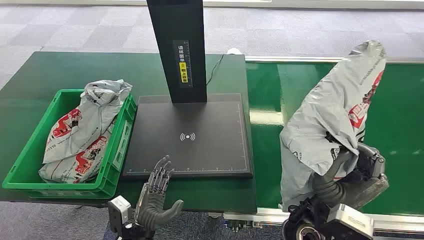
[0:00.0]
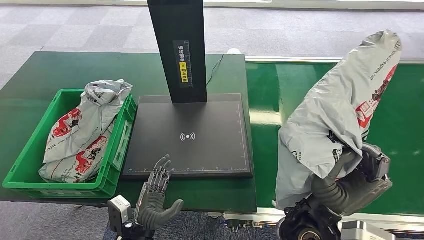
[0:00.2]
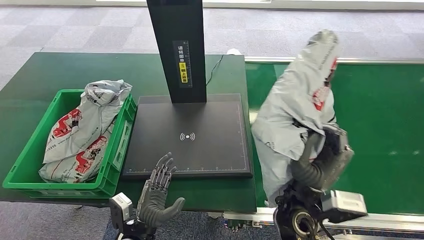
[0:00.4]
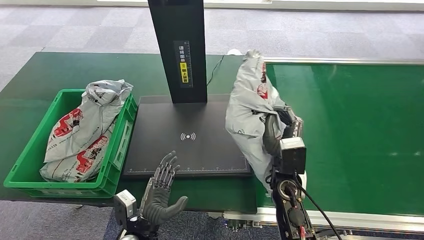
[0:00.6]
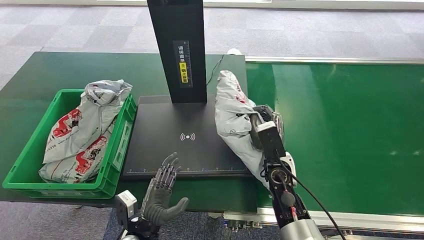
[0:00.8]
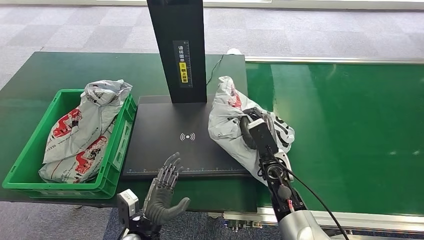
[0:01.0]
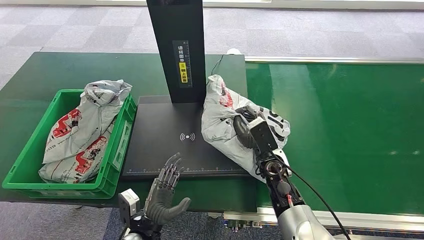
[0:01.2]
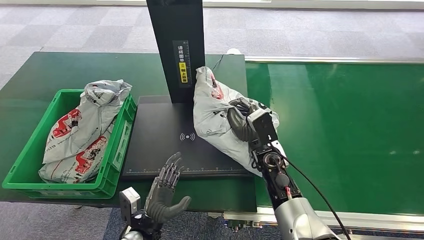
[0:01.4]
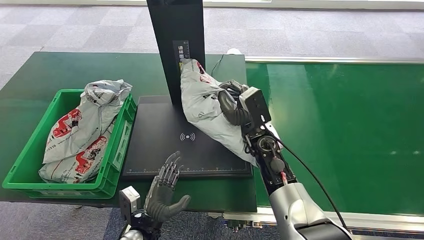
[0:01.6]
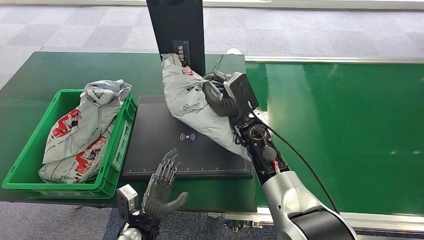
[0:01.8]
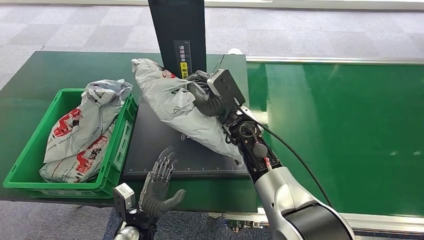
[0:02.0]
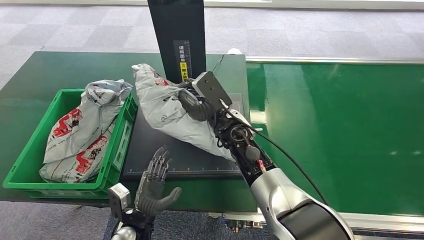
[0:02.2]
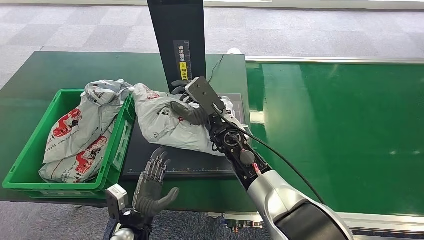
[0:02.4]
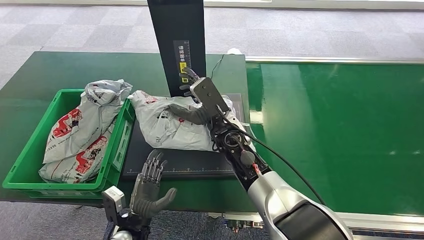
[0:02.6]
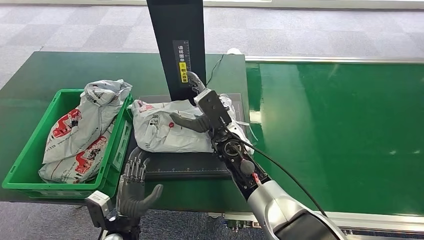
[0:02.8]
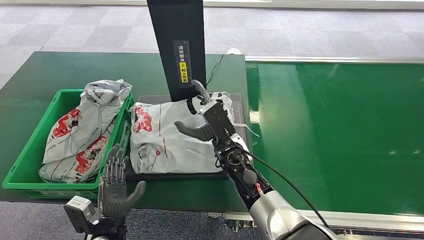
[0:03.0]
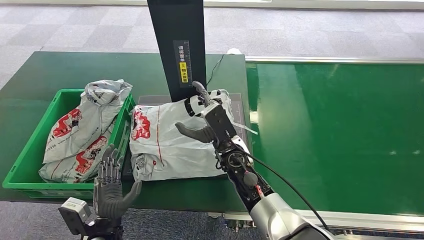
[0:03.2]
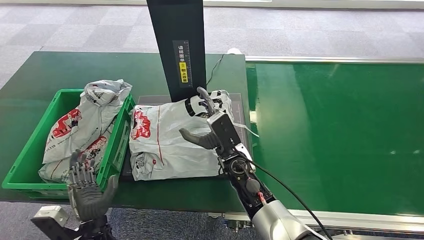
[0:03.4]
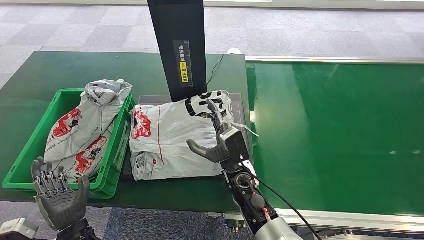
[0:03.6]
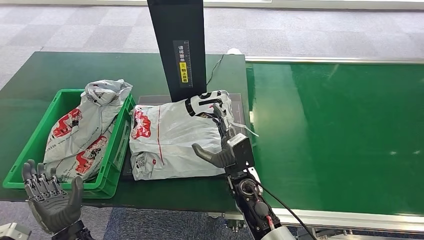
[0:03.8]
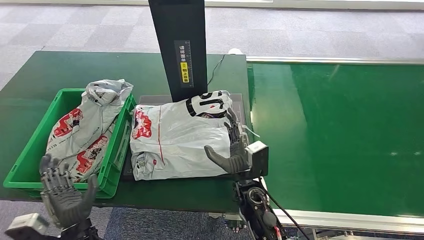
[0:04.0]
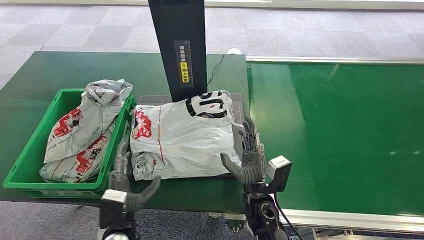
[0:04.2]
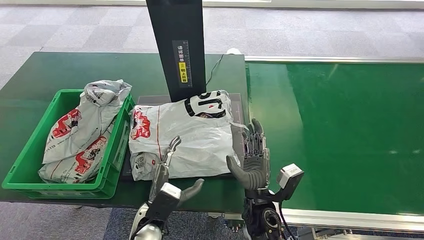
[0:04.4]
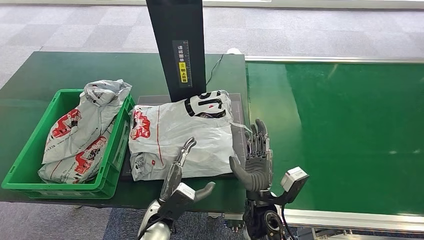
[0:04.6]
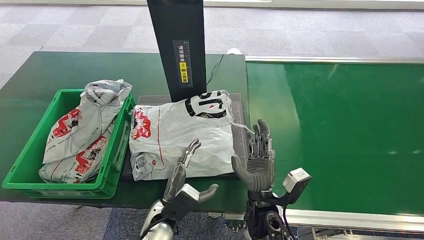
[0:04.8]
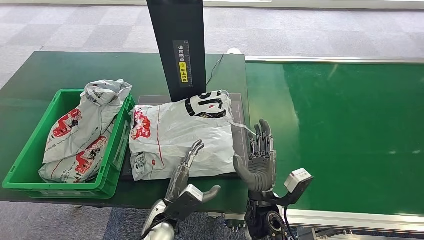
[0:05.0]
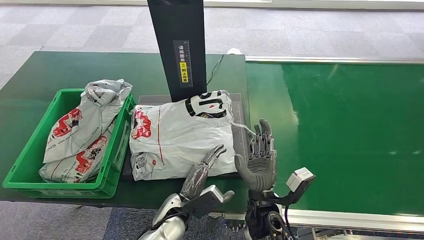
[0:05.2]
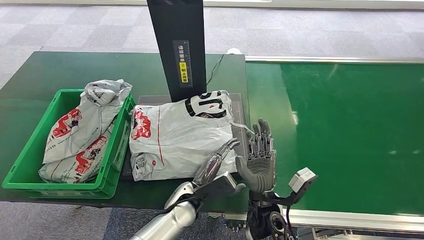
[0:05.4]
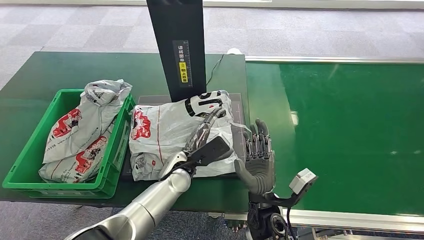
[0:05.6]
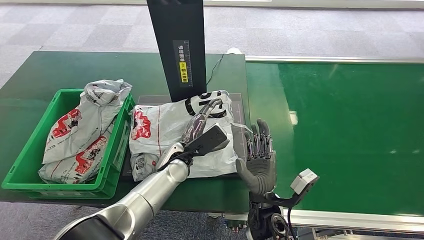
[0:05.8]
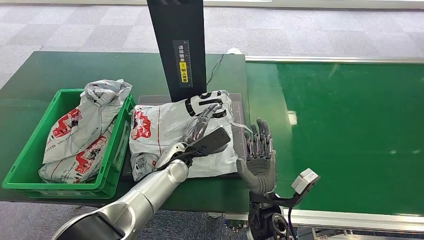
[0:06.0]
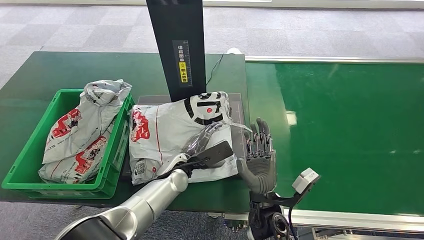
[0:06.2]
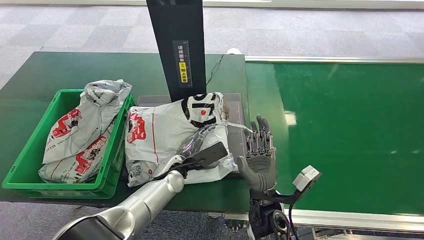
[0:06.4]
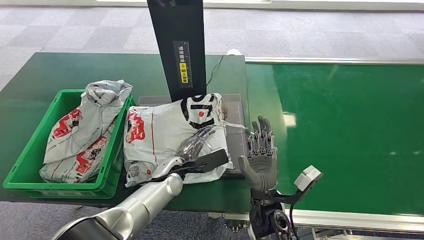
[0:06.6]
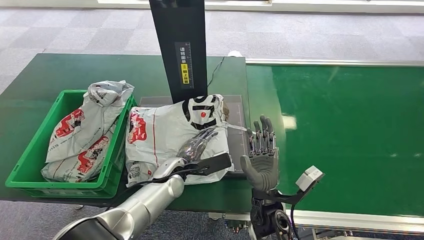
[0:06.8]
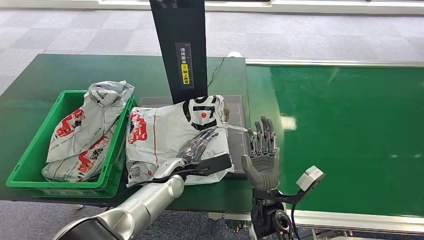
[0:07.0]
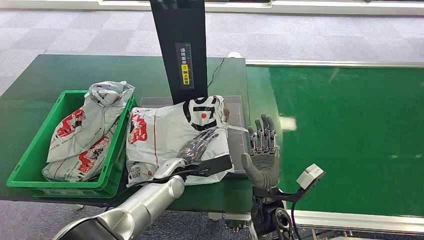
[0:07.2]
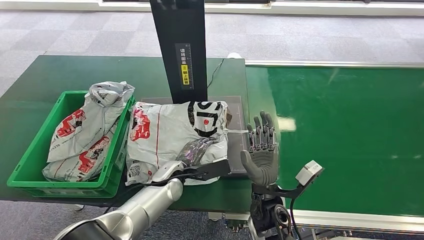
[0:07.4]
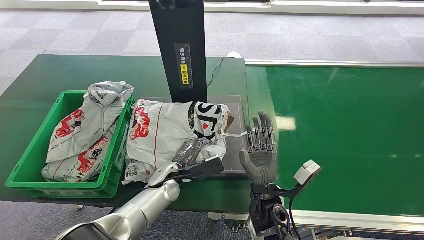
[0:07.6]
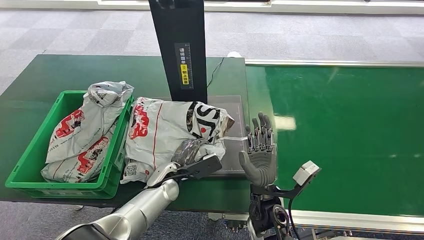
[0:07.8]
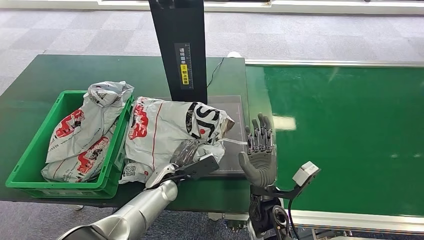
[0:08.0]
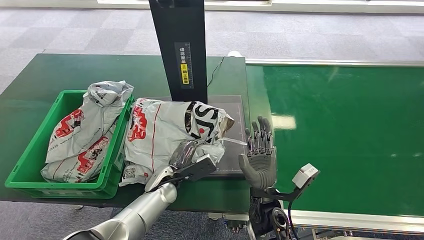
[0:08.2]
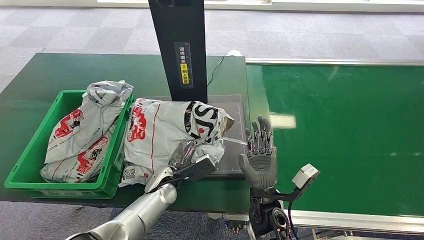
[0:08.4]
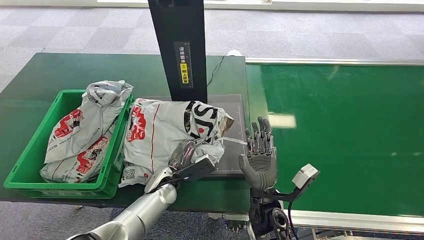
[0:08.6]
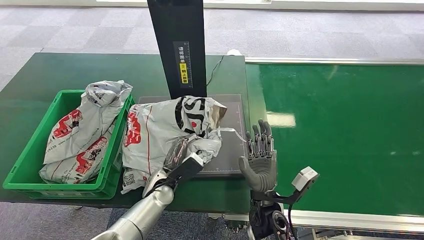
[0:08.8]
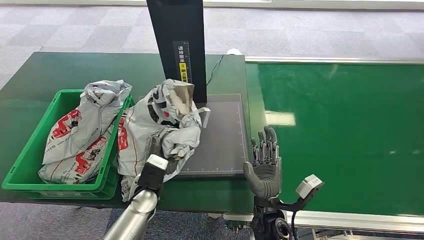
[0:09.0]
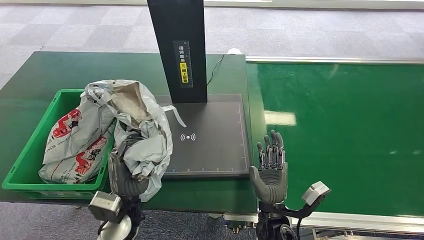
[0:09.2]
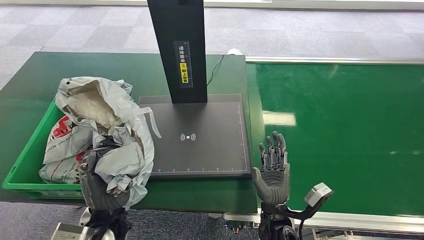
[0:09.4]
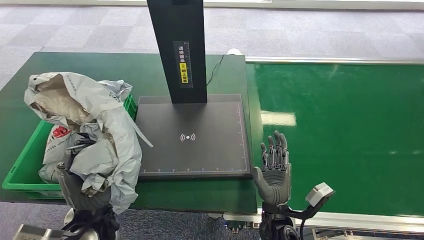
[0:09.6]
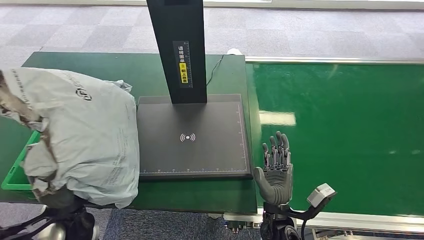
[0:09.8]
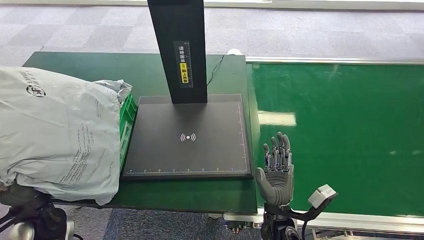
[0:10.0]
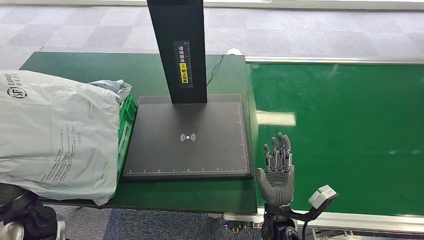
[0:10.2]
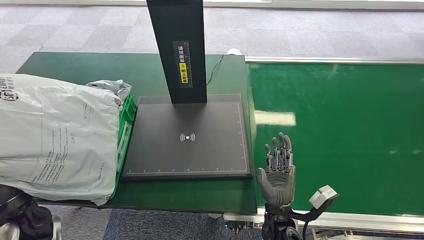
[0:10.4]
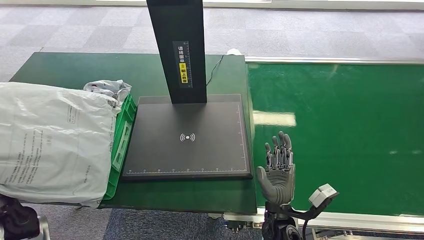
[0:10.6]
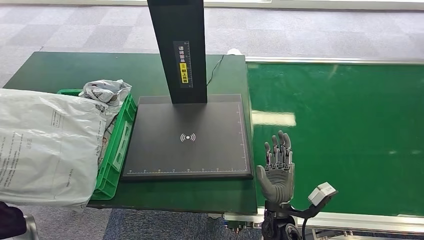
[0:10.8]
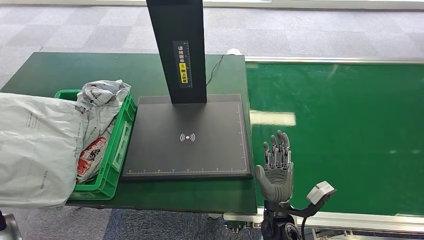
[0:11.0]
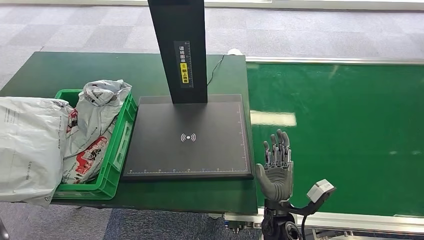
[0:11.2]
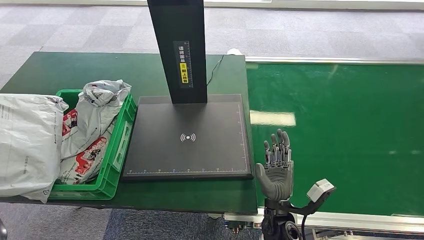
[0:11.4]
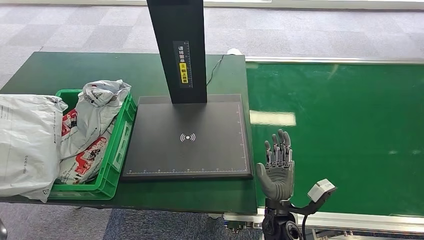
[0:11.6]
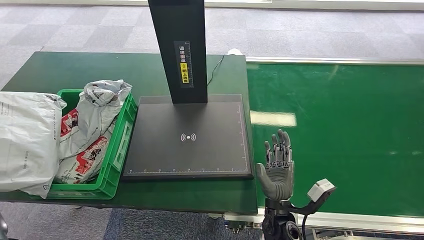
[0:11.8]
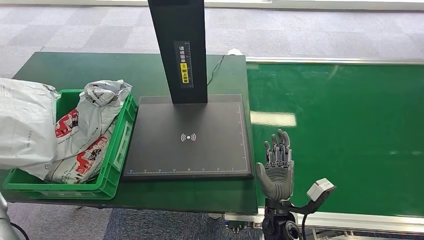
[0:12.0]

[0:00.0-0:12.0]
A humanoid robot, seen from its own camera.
0:03.0 to 0:04.4: The right hand travels backward, downward and to the right by roughly 15 cm. The left hand is displaced to the right by approximately 10 cm.
0:04.4 to 0:06.0: The left hand is displaced forward by about 15 cm.
0:10.4 to 0:12.0: The left hand moves to the left, roughly 20 cm.

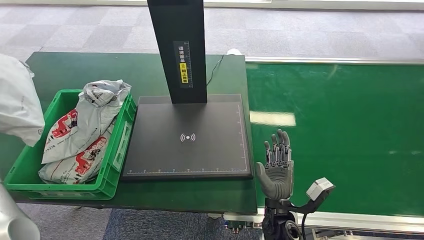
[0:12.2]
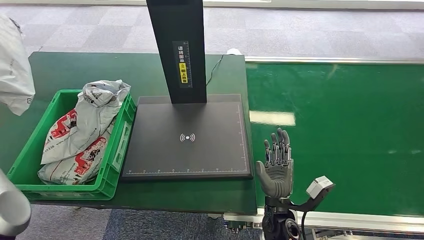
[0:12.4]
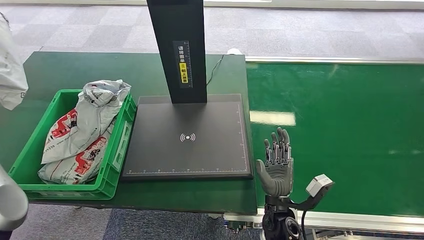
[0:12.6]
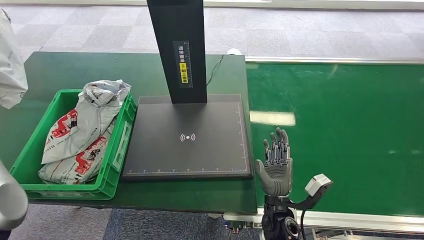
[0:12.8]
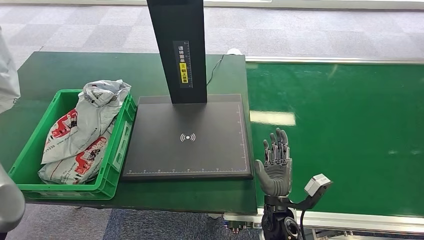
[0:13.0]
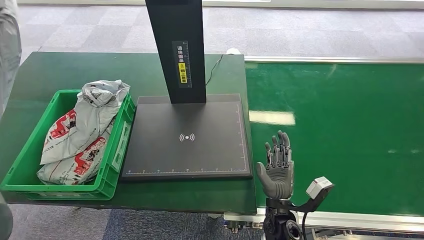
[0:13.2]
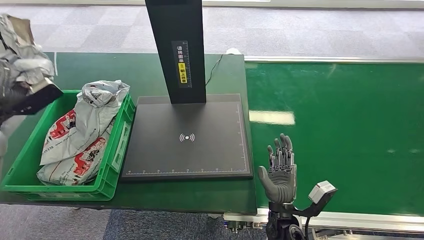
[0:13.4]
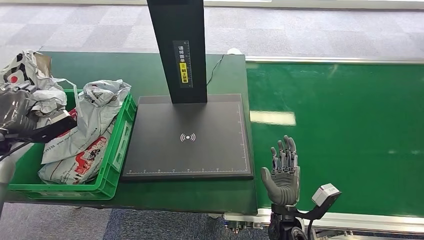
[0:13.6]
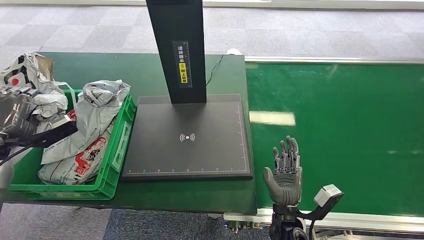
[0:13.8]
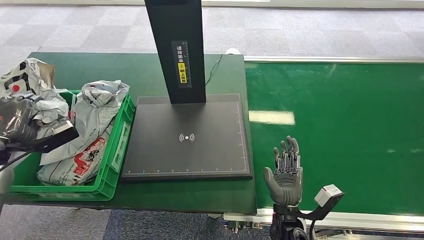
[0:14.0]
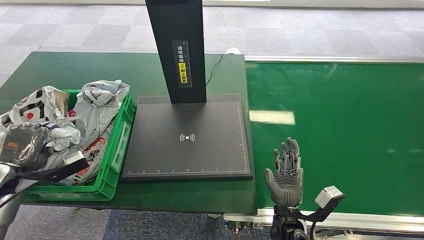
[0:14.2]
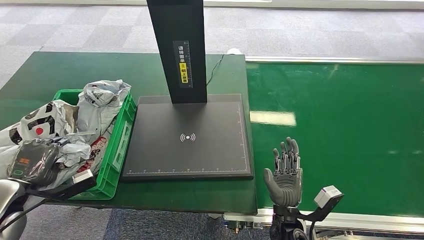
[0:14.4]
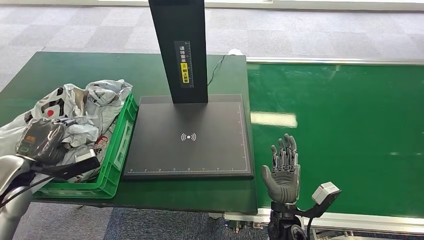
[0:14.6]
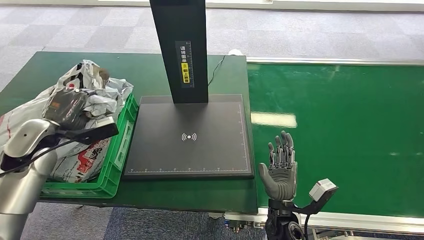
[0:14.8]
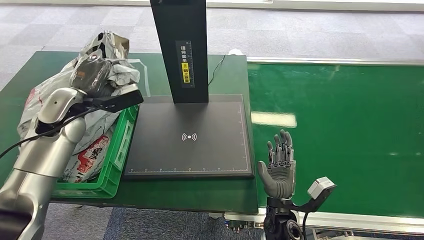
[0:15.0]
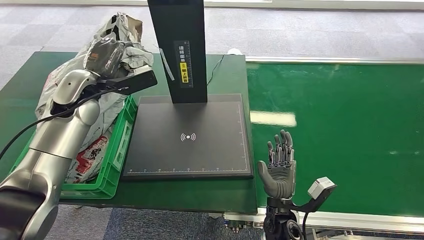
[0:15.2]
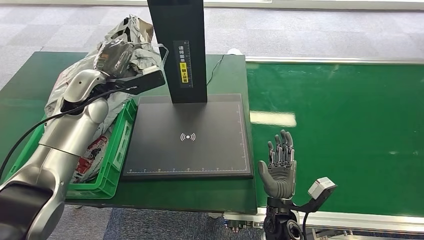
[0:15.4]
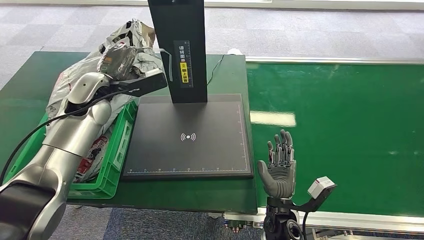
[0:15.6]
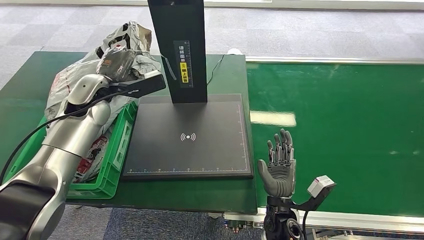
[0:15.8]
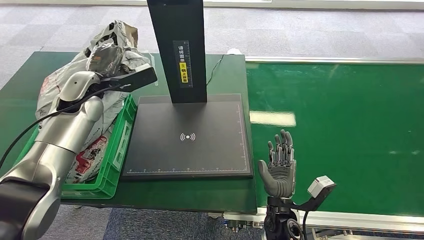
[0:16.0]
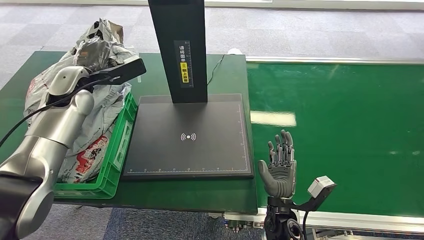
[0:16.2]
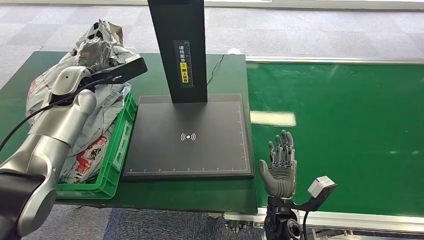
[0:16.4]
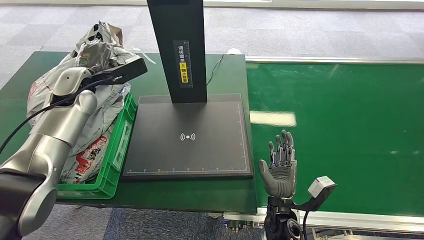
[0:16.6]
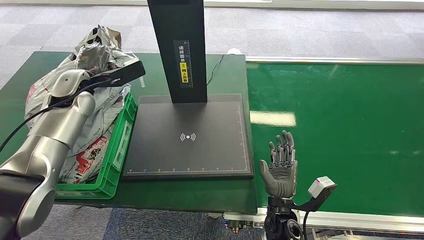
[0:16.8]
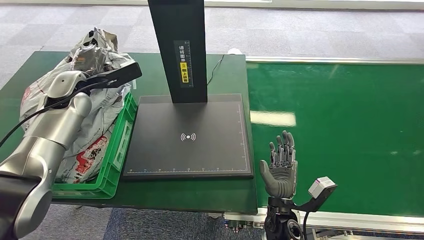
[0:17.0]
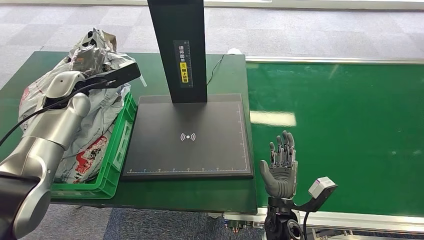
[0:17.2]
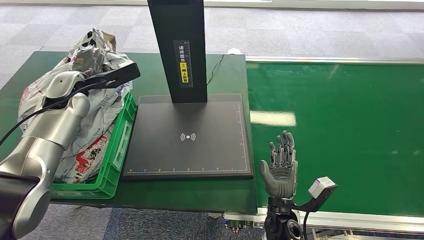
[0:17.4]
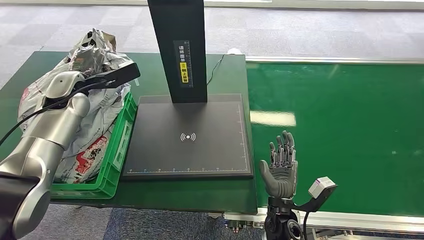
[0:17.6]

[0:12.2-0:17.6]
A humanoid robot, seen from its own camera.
0:12.2 to 0:13.6: The left hand is displaced to the right by about 5 cm, and moves about 15 cm upward and comes back.
0:15.0 to 0:16.2: The left hand goes some 5 cm forward.
0:16.2 to 0:17.6: The hands move only a little.
